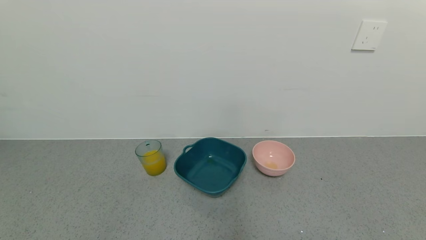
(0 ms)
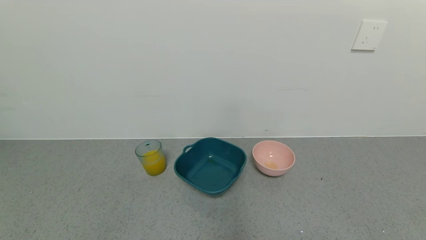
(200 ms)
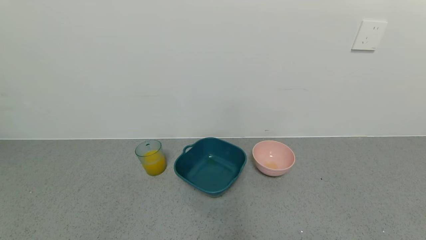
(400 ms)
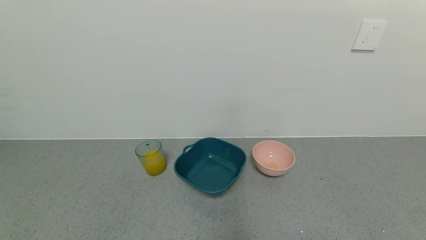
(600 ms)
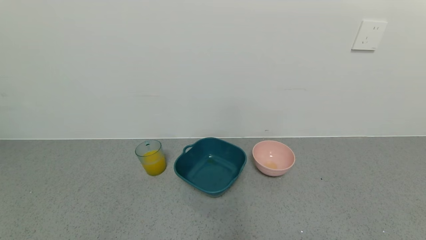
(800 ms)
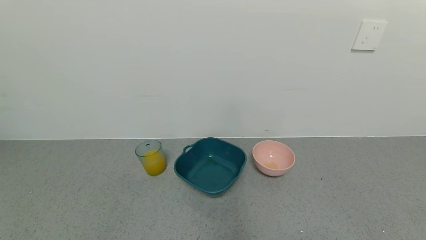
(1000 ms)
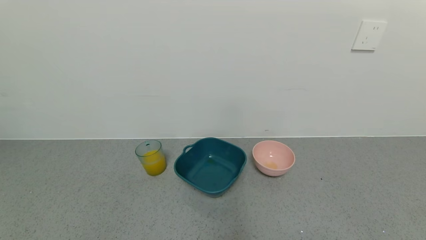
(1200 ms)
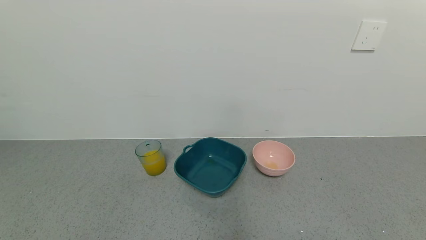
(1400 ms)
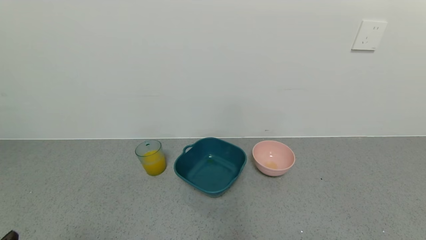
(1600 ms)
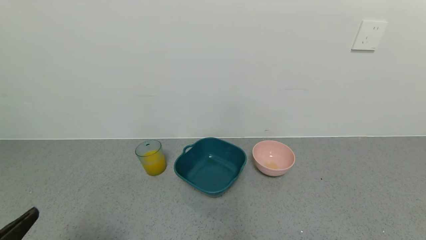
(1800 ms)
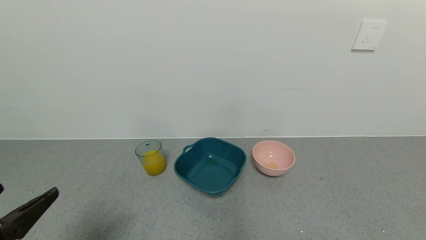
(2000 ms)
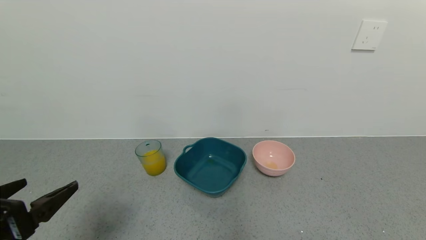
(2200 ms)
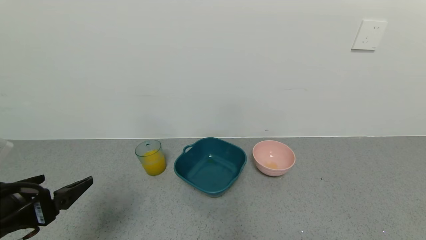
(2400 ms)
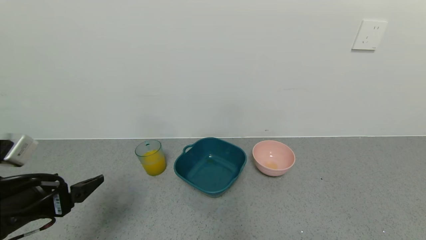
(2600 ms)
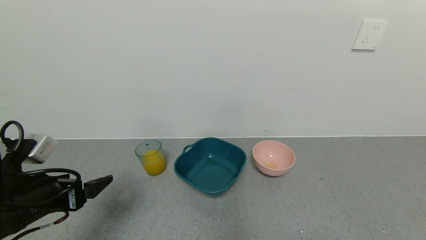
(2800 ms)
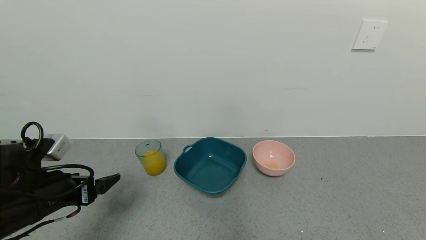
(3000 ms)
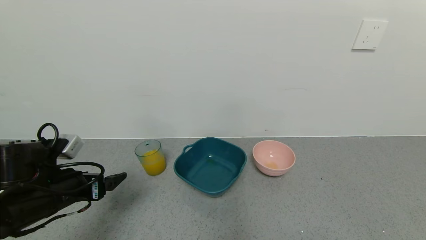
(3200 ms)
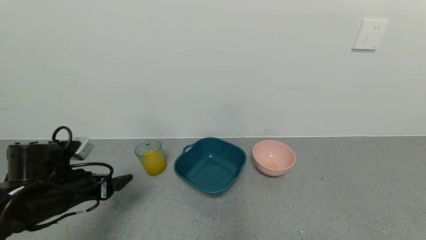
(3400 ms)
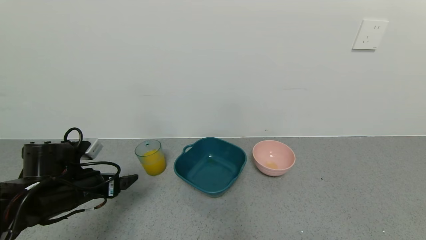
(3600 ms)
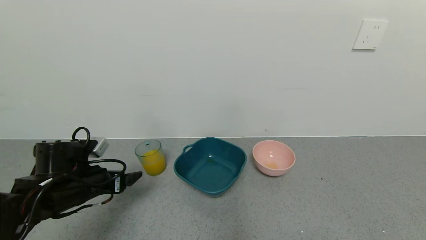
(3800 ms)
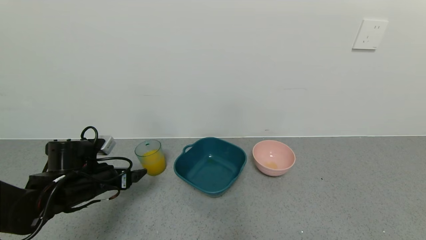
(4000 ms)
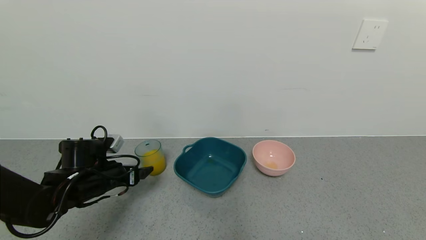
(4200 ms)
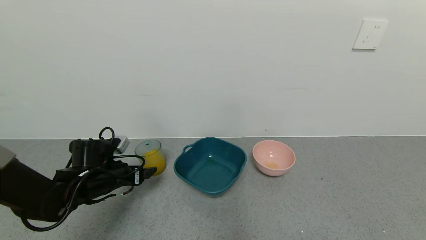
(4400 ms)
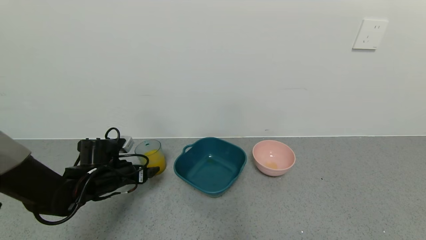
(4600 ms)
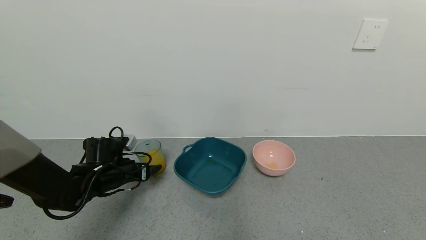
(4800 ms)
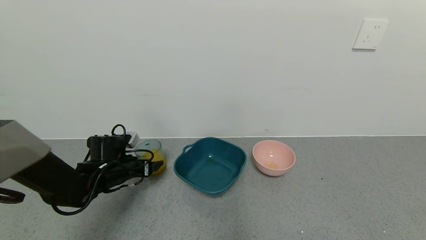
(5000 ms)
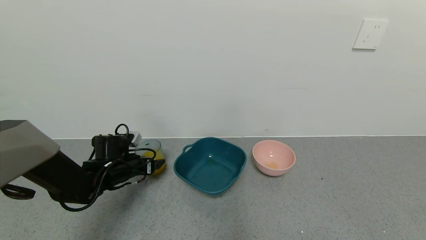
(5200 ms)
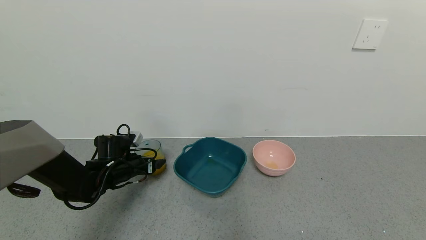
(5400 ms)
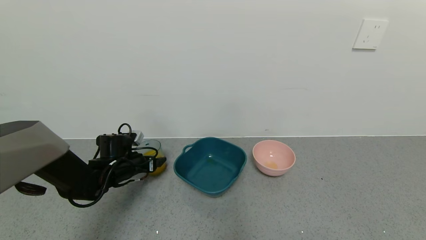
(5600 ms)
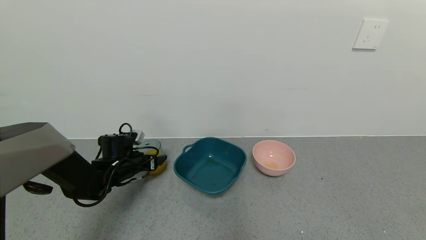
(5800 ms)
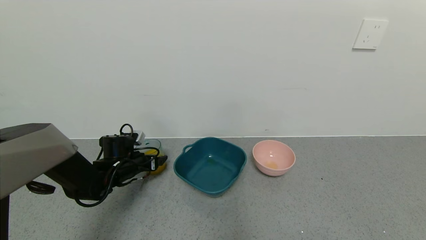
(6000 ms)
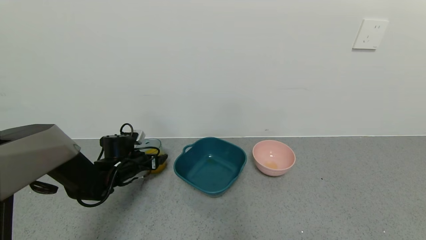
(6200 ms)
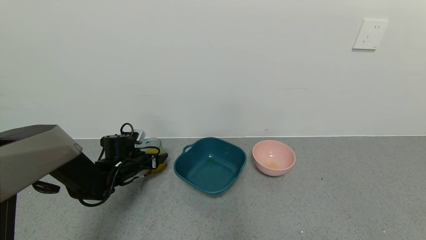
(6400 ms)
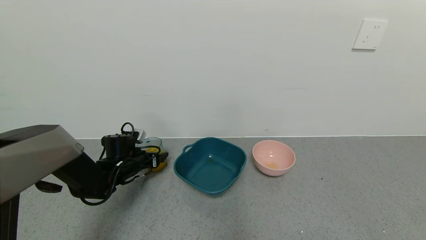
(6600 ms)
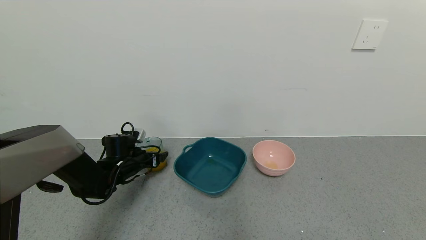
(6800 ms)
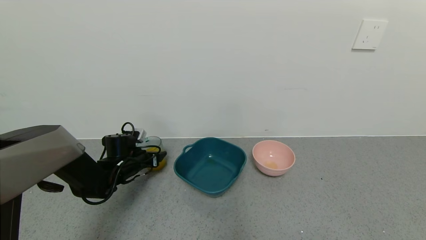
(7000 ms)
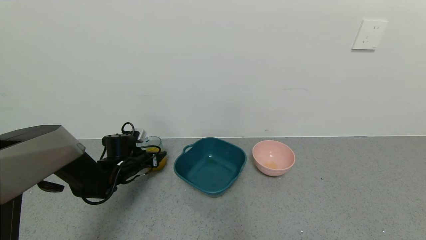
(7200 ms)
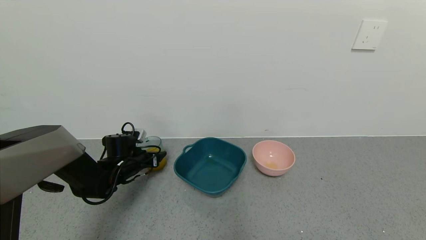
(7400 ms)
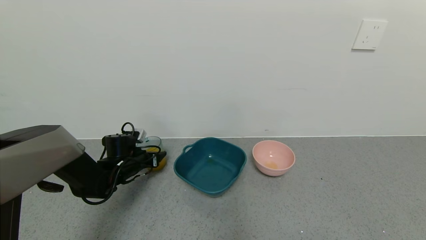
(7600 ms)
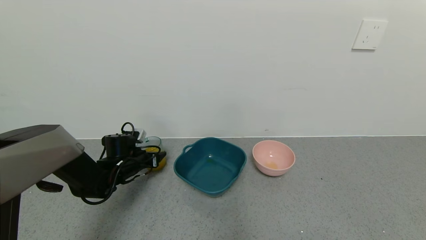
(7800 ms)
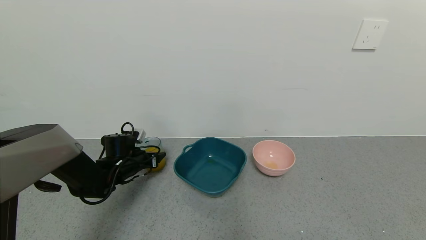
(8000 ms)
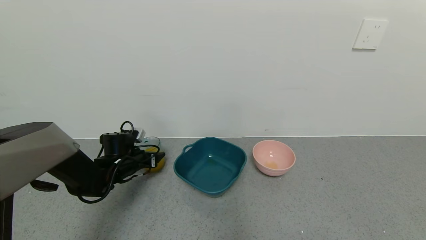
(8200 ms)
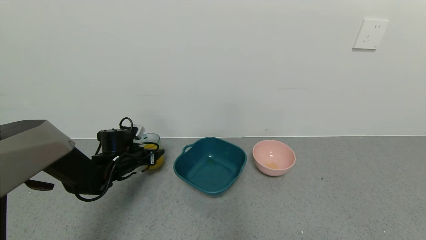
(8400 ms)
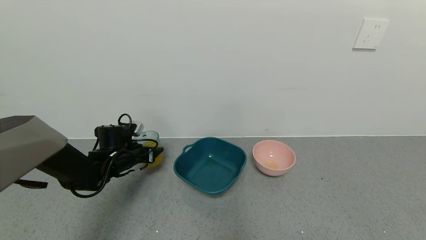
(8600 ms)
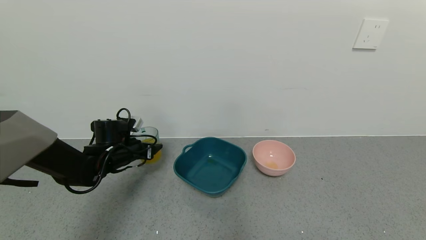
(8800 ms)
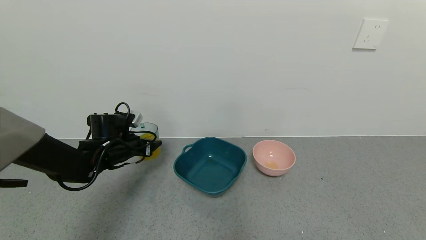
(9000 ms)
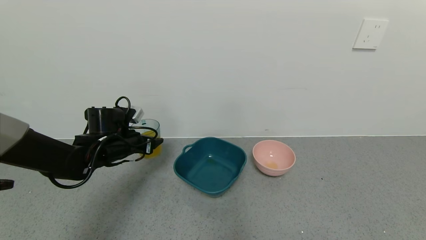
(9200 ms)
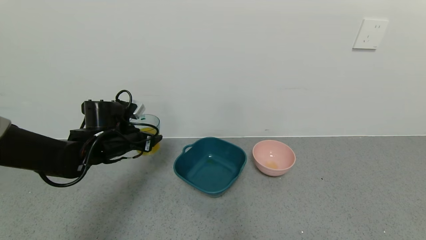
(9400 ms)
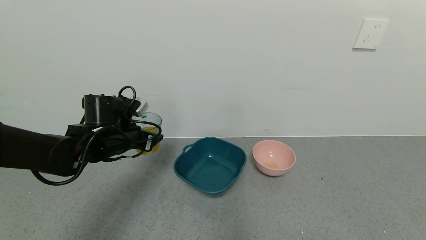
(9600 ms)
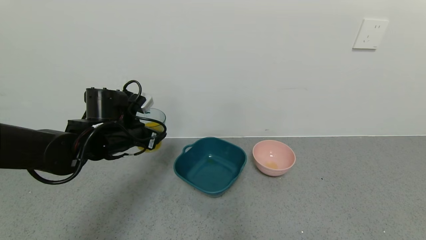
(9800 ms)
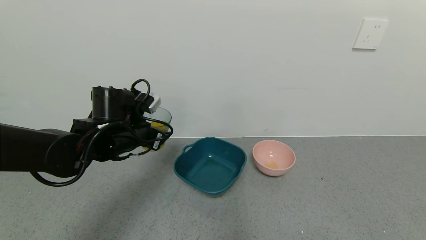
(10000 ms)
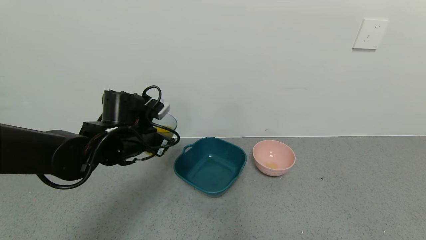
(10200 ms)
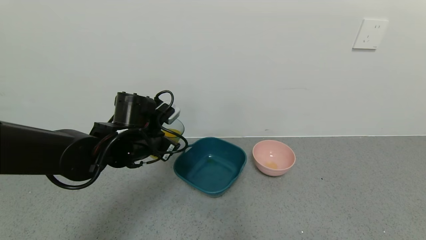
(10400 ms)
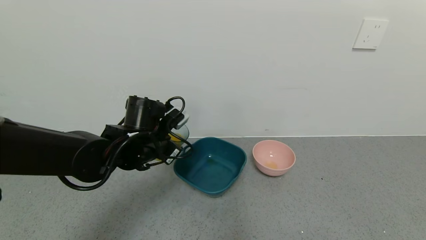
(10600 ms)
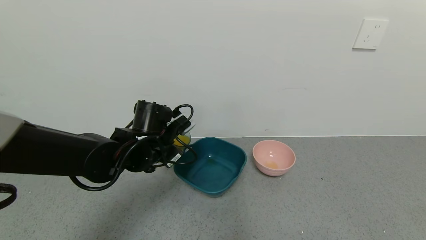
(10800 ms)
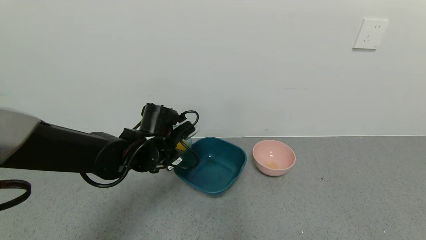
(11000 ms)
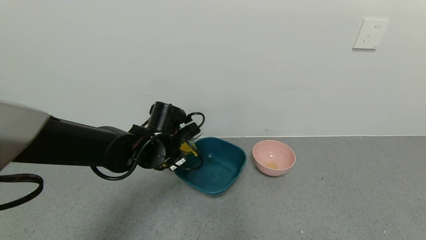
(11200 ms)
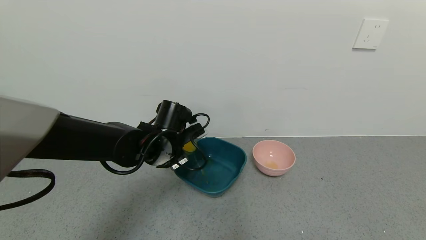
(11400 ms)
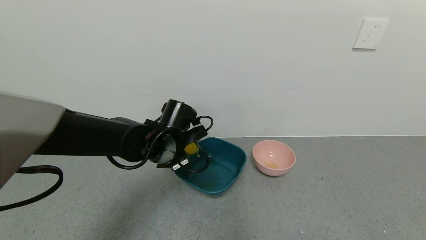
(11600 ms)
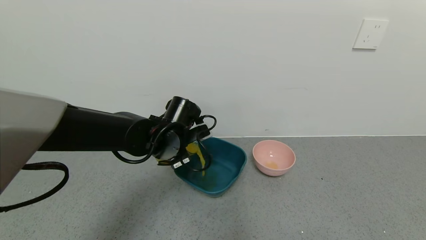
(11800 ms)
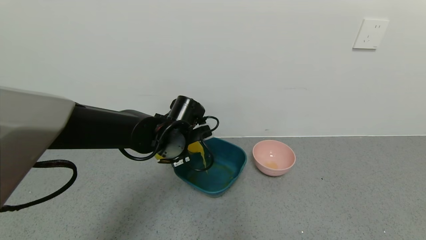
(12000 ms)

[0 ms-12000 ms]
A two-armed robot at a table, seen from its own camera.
Task of the whole recording: use a gripper to pick up the cup and pour the liquid into a bowl or tray.
Step, 7800 ms to 11000 ms: Pick up blue cup filled with orange juice with left gripper.
1600 ms to 3000 ms: The left gripper shifts roughly 20 cm forward.
3000 ms to 4400 ms: The left gripper travels forward and downward by some 15 cm.
4400 ms to 6000 ms: The left gripper shifts some 10 cm forward.
6000 ms to 7600 ms: The left gripper closes.
7600 ms to 9000 ms: The left gripper shifts some 10 cm upward.
9000 ms to 10400 ms: The left gripper shifts approximately 15 cm to the right, upward and backward.
10400 ms to 12000 ms: The left gripper shifts about 5 cm to the right.

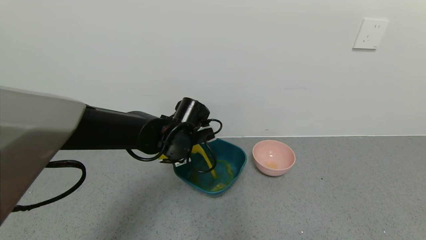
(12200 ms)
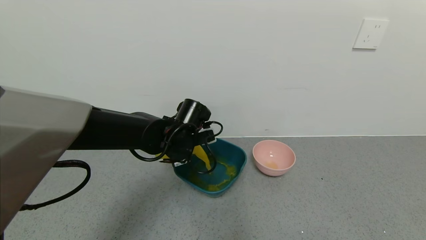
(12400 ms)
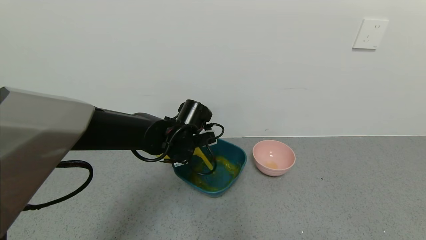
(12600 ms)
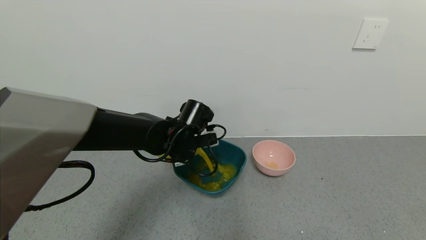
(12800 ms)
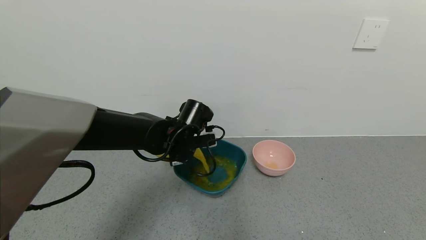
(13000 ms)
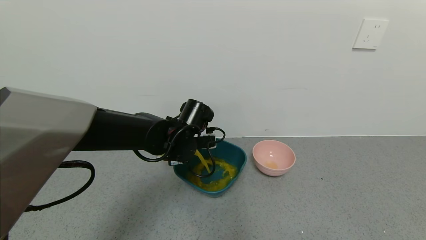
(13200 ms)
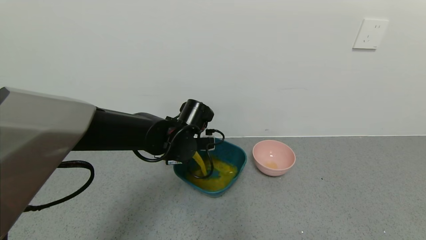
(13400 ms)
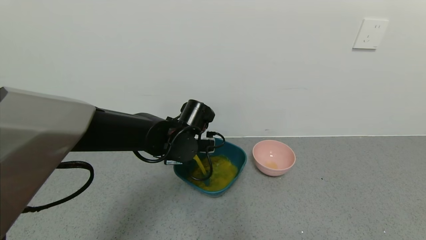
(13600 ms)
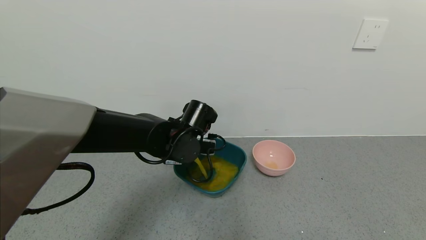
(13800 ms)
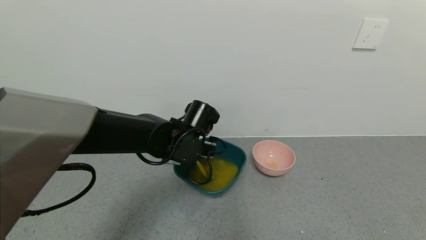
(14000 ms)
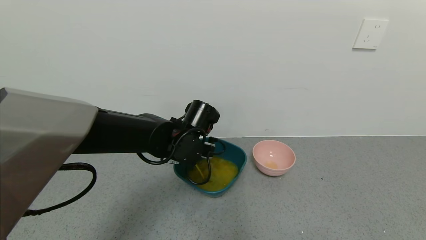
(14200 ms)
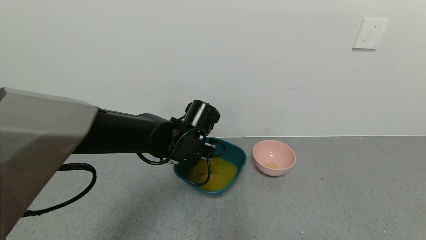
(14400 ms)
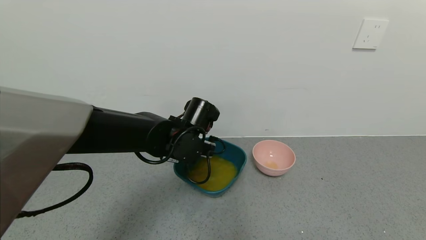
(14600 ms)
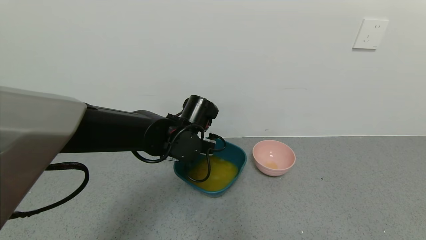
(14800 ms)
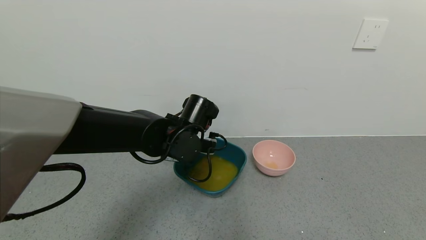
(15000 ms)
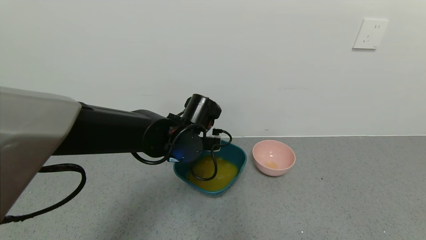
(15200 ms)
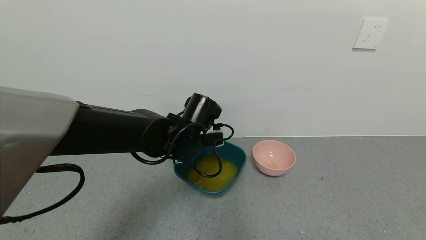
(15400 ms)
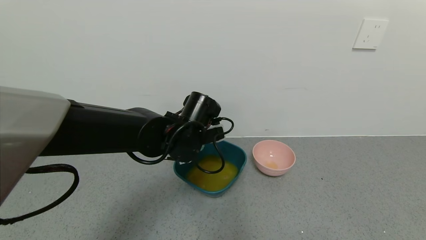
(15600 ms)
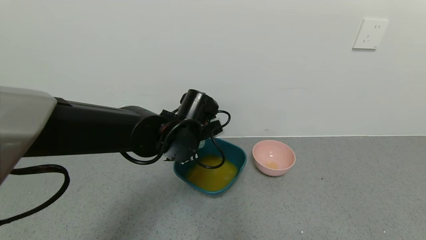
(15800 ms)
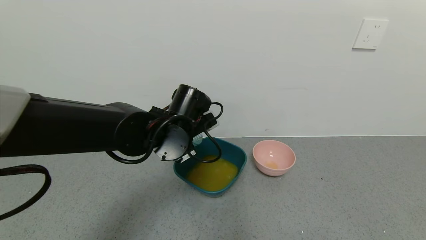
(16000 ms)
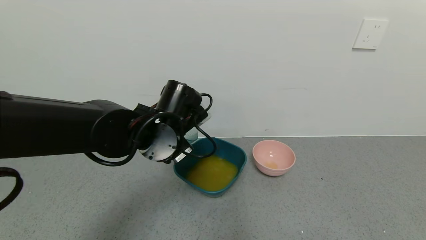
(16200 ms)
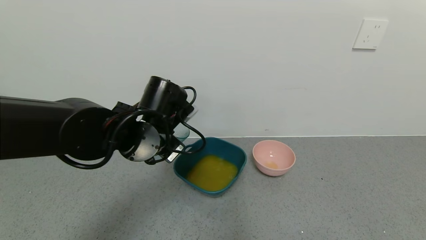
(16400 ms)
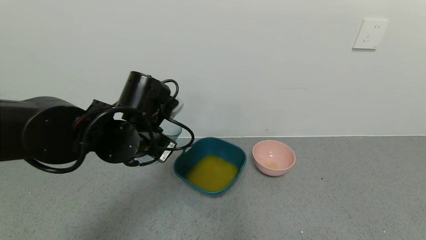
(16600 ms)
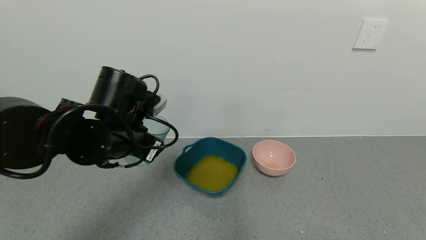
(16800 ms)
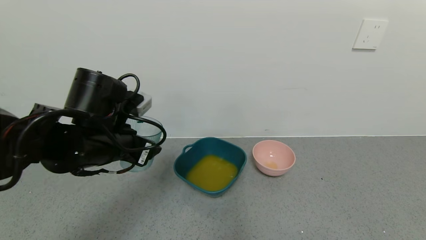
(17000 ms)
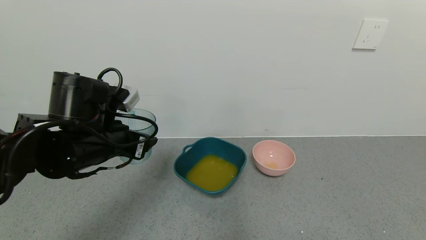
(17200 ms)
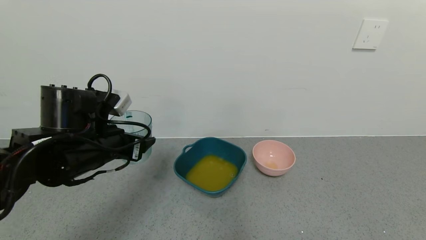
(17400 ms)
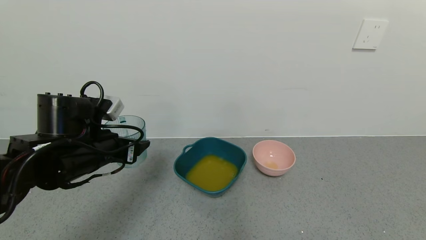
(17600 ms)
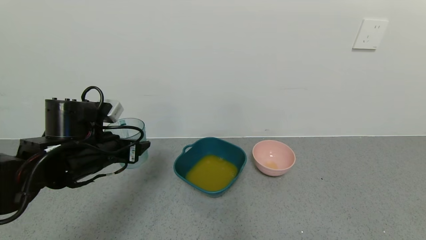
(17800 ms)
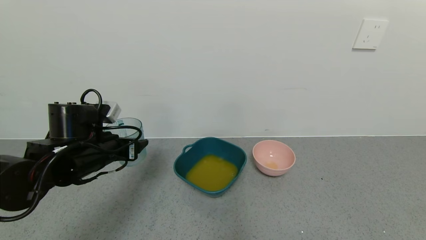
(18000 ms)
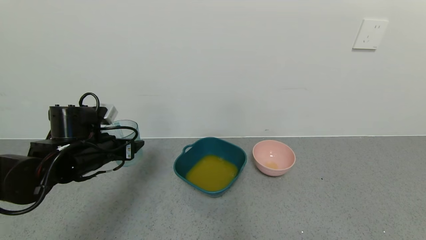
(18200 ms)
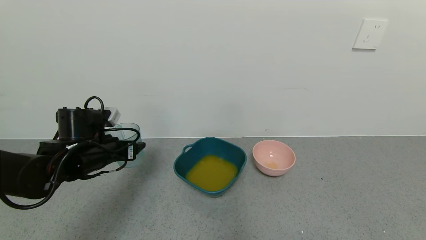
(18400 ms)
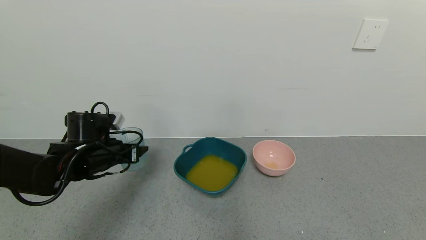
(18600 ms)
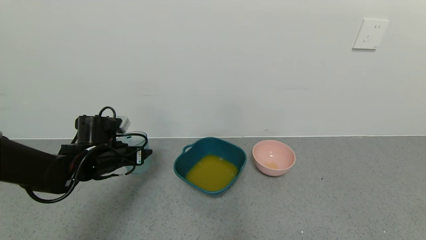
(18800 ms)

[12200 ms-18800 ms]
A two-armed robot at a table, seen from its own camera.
Task of the whole recording: use a gripper to pick up the cup and pour the liquid into a bowl or tray.
Step, 12200 ms to 14600 ms: Pour the orange juice into the blue basin with left gripper.
13800 ms to 15400 ms: The grippers make only small movements.
15400 ms to 17200 ms: The left gripper travels to the left and backward by about 15 cm.
17200 ms to 18800 ms: The left gripper heads downward, forward and to the left, covering approximately 15 cm.
